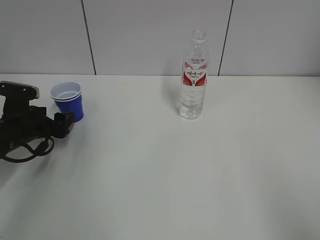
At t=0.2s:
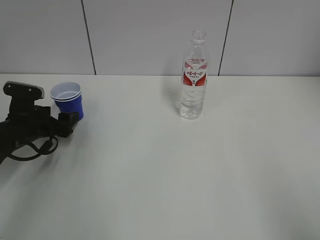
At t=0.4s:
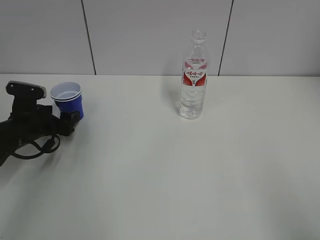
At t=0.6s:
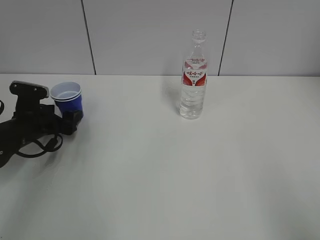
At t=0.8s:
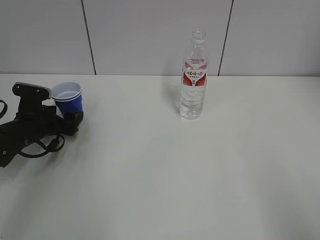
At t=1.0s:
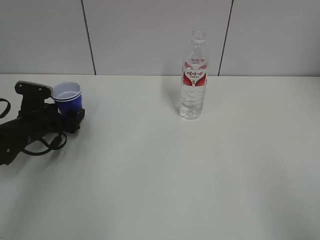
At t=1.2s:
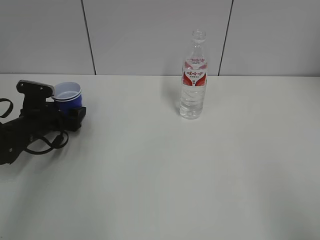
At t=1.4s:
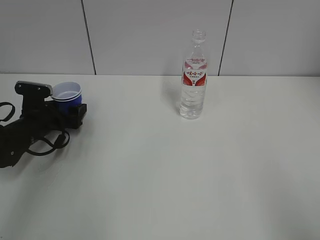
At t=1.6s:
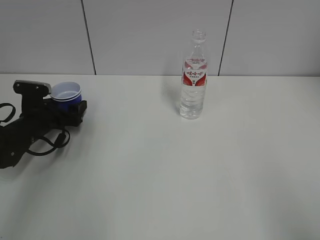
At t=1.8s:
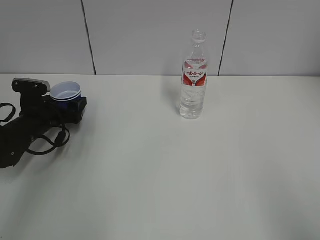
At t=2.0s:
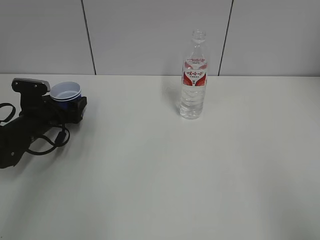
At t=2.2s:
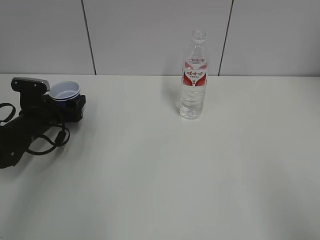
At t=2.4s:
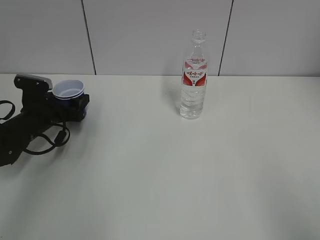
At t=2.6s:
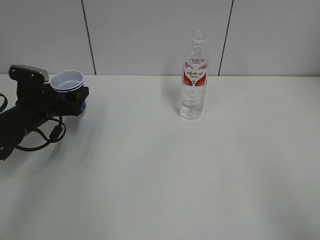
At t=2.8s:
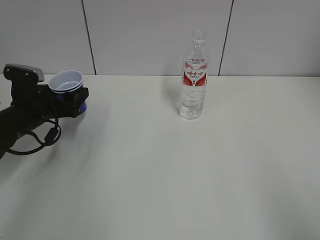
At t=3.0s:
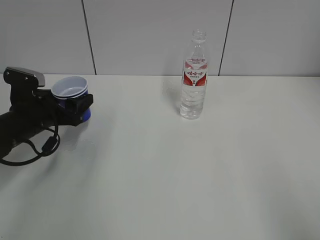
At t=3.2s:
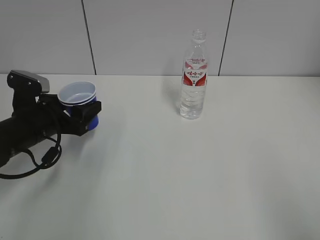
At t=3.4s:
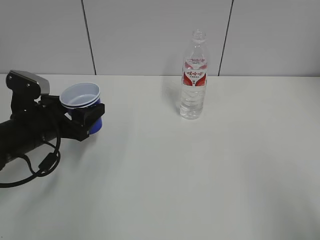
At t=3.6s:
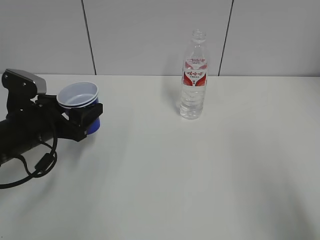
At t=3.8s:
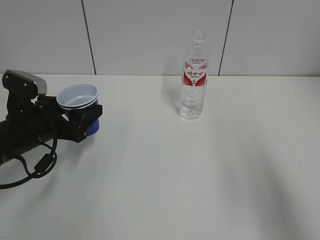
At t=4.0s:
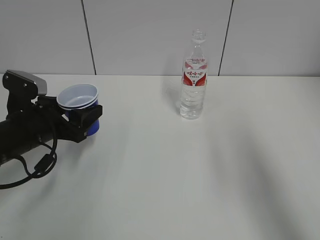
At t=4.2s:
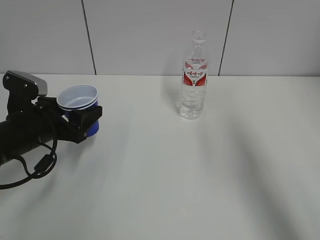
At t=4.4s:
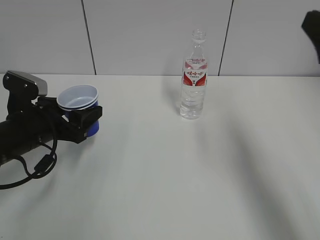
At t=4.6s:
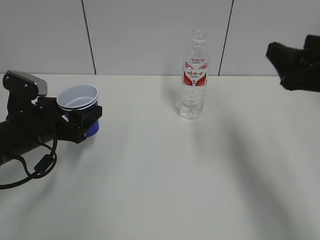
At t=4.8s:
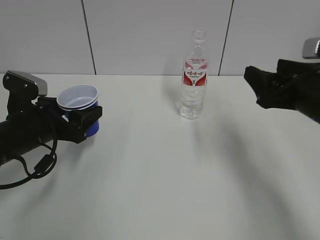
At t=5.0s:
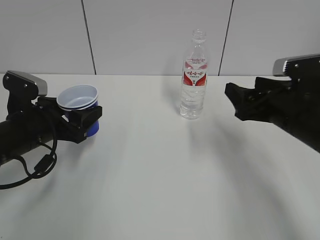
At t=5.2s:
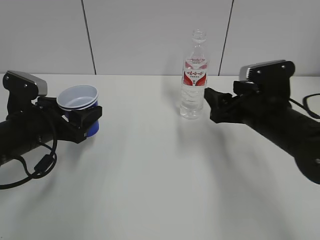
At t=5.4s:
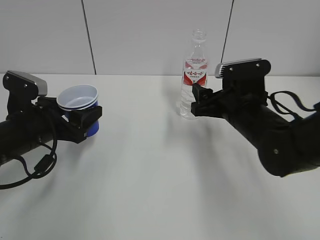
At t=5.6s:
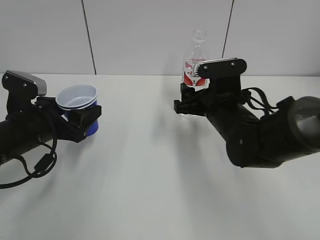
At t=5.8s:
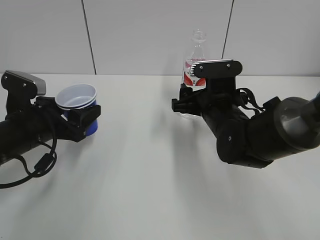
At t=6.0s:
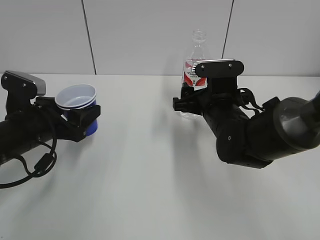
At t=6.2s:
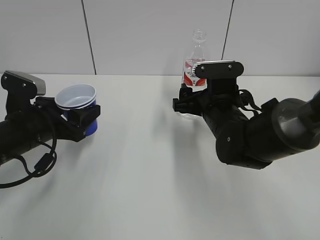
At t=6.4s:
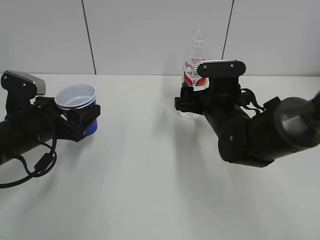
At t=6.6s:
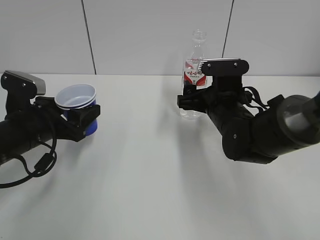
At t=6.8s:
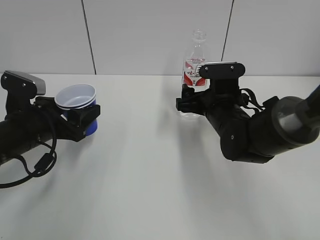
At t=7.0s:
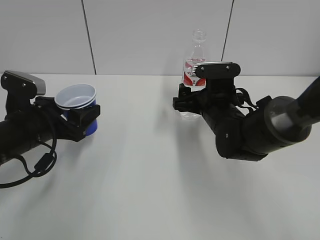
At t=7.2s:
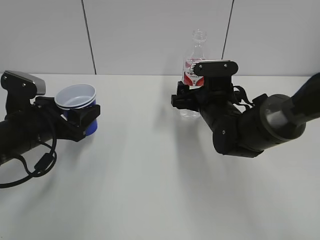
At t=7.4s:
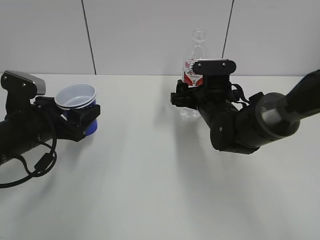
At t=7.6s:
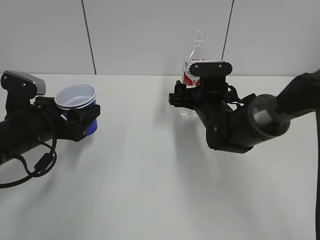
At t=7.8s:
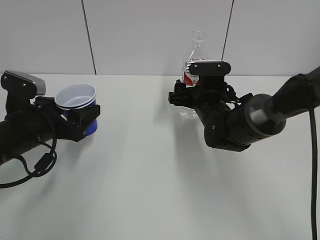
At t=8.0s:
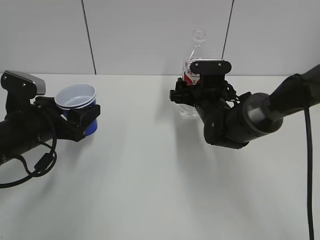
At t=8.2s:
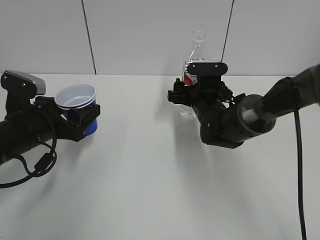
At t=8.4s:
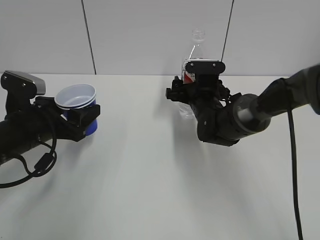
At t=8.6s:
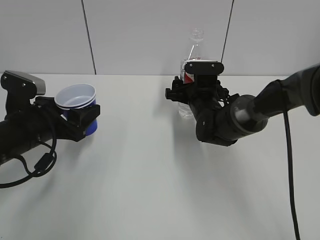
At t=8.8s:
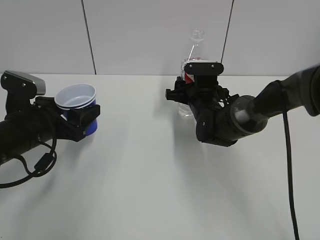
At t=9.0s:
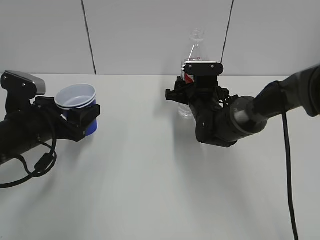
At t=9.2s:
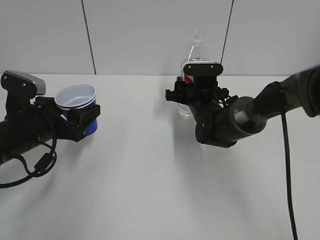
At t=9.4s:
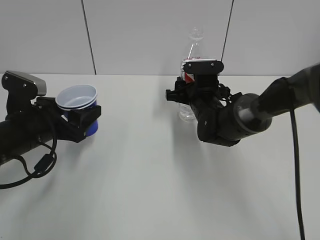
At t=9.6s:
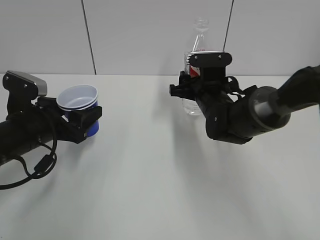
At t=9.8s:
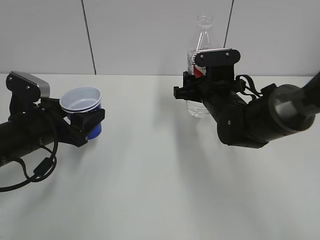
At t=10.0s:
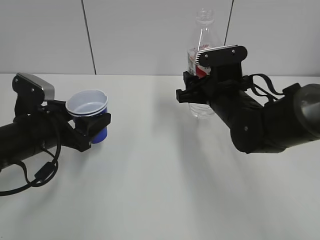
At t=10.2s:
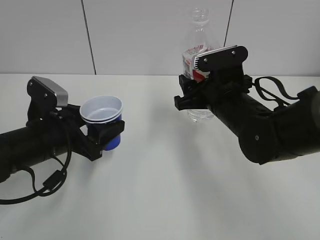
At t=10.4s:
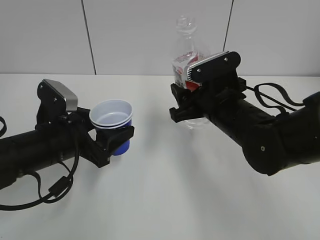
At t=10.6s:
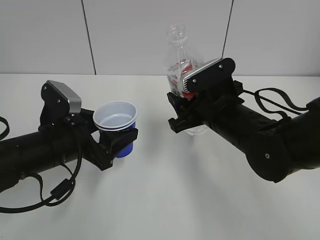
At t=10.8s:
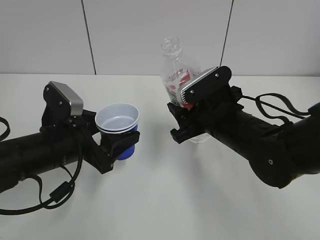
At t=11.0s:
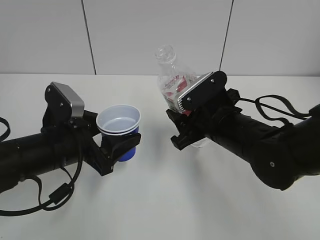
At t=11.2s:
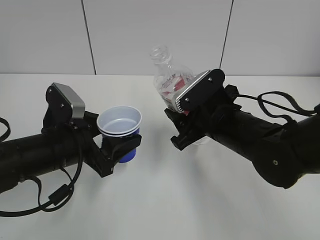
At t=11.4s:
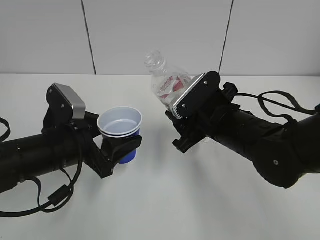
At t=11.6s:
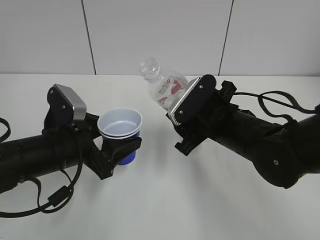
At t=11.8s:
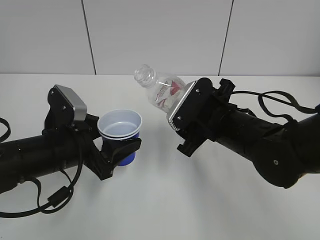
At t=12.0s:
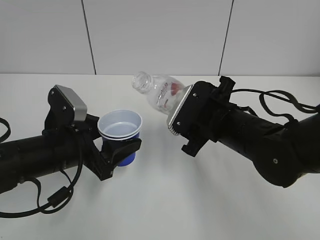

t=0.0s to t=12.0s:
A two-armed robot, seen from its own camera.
Step, t=0.0s to t=2.0s: Grab the paper cup with the left hand.
Step, t=2.2s to t=9.0s: Grab the water bottle with the right hand.
t=0.0s to t=1.6s: The left gripper changes place by about 5 cm.
t=1.6s to t=3.0s: The left gripper heads upward and backward, covering about 10 cm, and closes its fingers.
t=3.0s to t=4.4s: The right gripper moves forward, roughly 25 cm. The left gripper changes place by roughly 5 cm.
t=4.4s to t=6.0s: The right gripper heads downward, to the left and forward, covering roughly 25 cm.
t=6.0s to t=7.6s: The right gripper heads forward, covering roughly 5 cm, and opens its fingers.
t=7.6s to t=9.0s: The right gripper closes up.
t=9.0s to t=10.4s: The right gripper heads backward and upward, covering about 15 cm, while the left gripper ends up about 5 cm from where it was.

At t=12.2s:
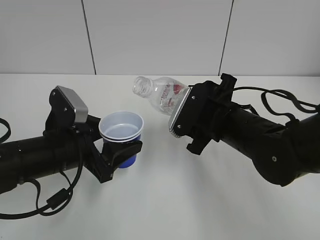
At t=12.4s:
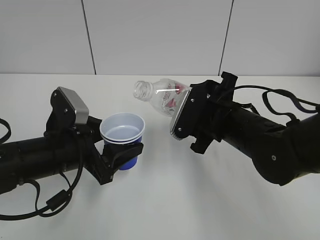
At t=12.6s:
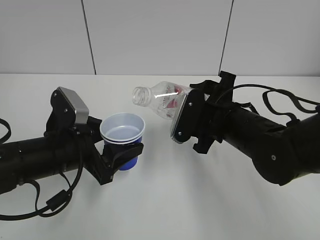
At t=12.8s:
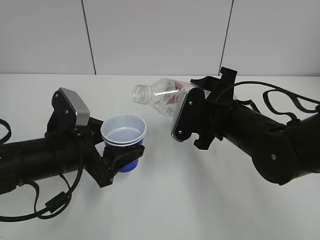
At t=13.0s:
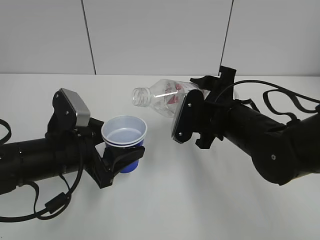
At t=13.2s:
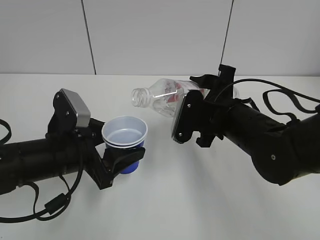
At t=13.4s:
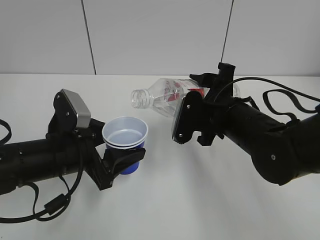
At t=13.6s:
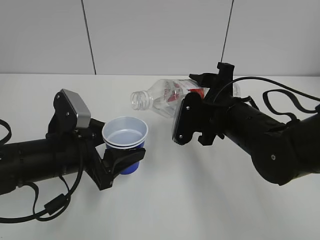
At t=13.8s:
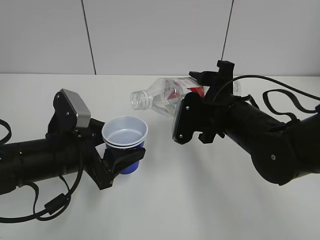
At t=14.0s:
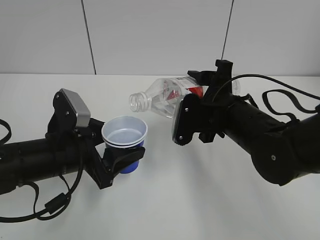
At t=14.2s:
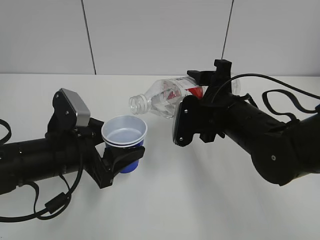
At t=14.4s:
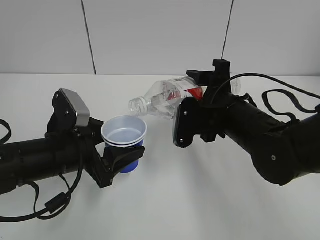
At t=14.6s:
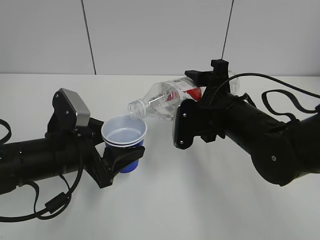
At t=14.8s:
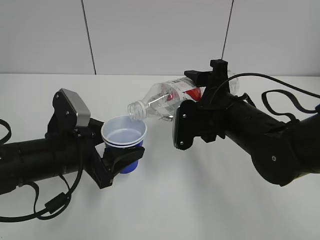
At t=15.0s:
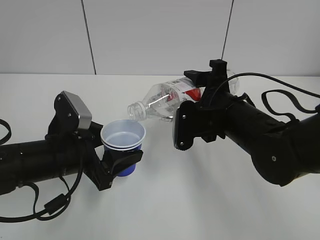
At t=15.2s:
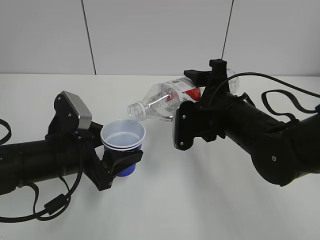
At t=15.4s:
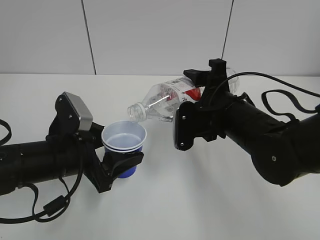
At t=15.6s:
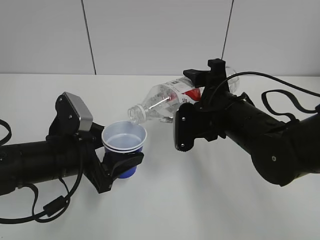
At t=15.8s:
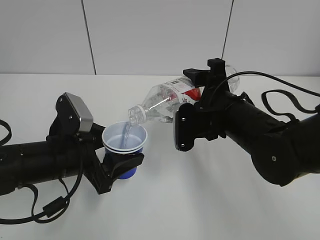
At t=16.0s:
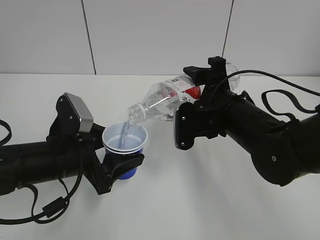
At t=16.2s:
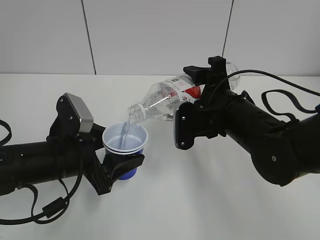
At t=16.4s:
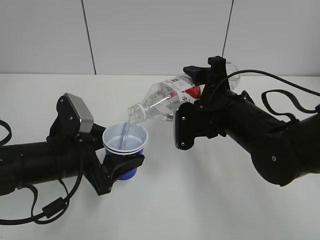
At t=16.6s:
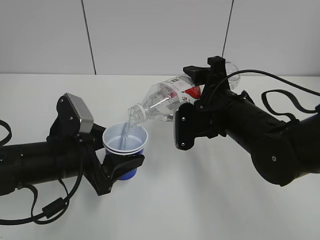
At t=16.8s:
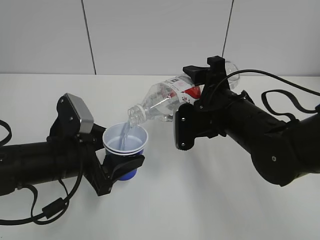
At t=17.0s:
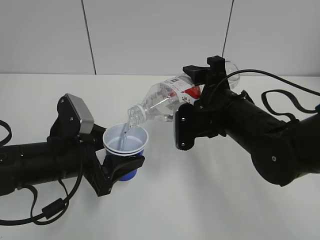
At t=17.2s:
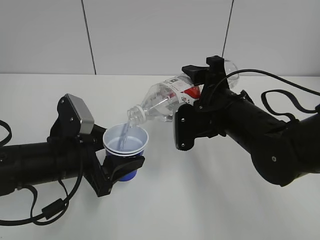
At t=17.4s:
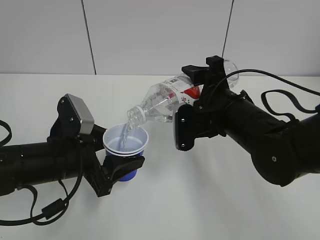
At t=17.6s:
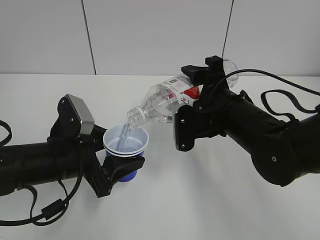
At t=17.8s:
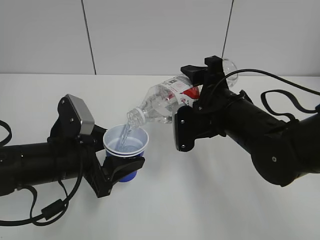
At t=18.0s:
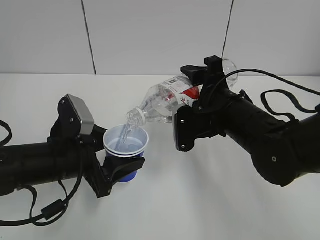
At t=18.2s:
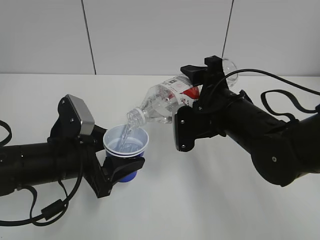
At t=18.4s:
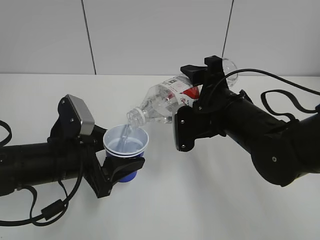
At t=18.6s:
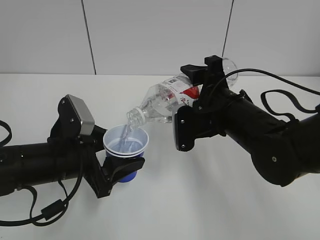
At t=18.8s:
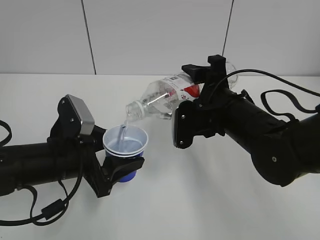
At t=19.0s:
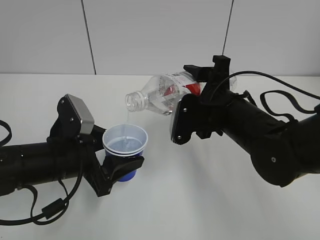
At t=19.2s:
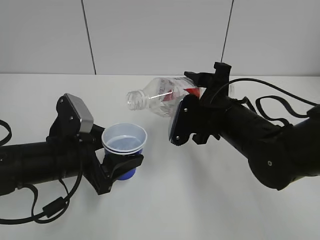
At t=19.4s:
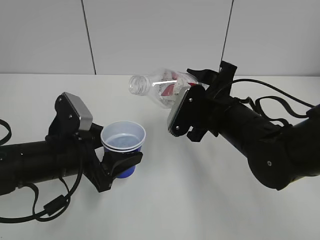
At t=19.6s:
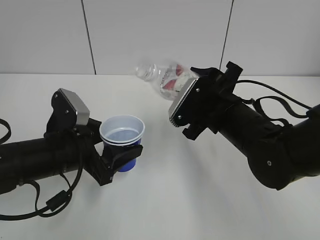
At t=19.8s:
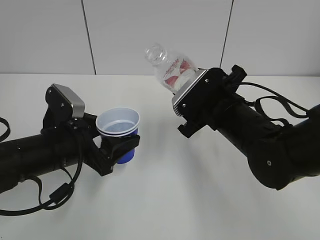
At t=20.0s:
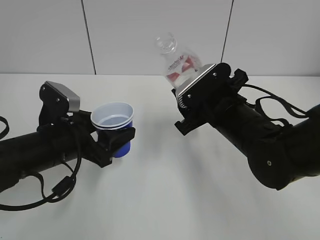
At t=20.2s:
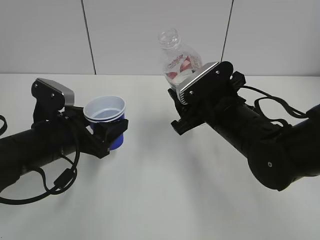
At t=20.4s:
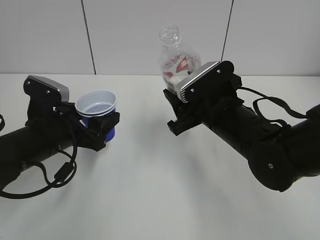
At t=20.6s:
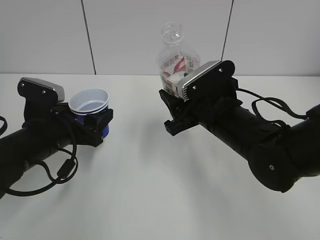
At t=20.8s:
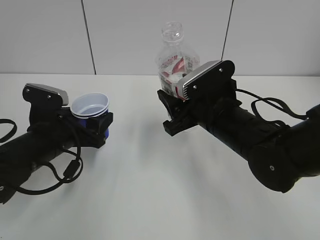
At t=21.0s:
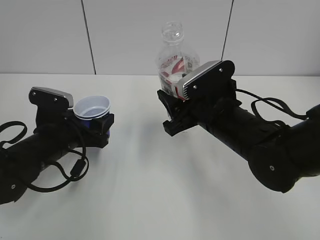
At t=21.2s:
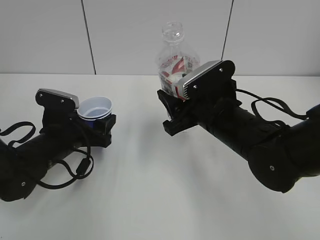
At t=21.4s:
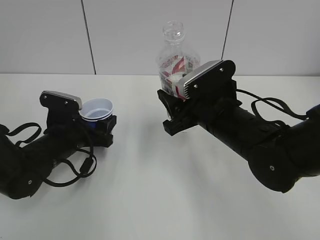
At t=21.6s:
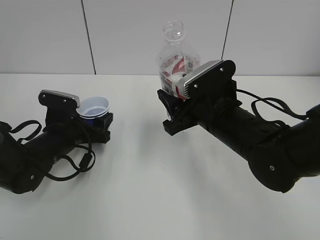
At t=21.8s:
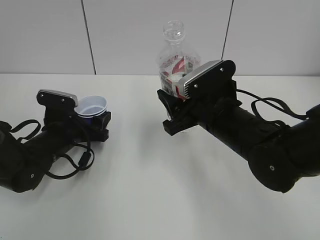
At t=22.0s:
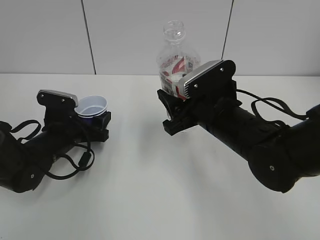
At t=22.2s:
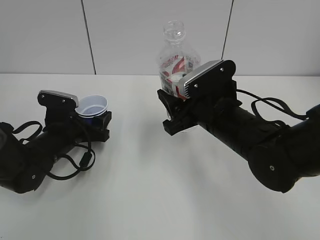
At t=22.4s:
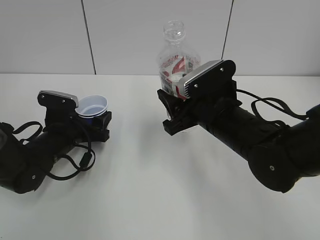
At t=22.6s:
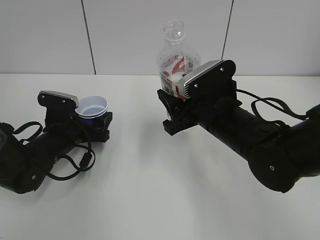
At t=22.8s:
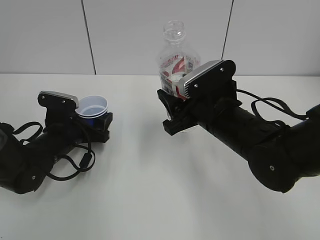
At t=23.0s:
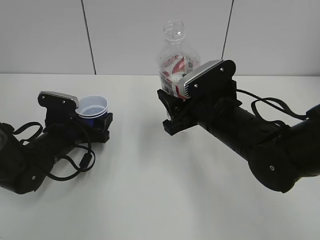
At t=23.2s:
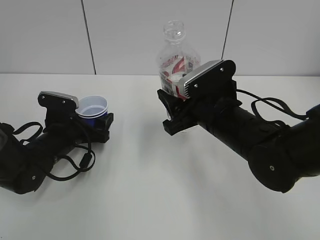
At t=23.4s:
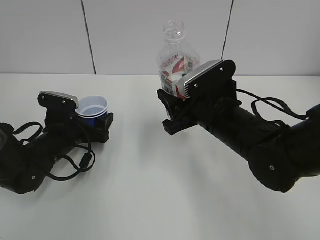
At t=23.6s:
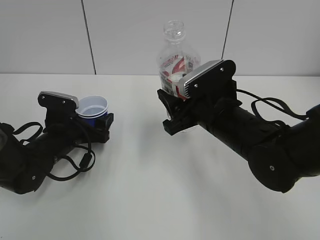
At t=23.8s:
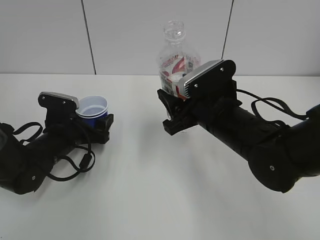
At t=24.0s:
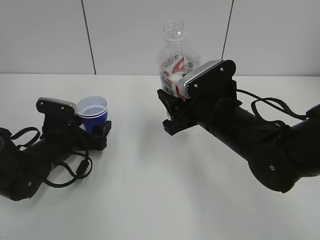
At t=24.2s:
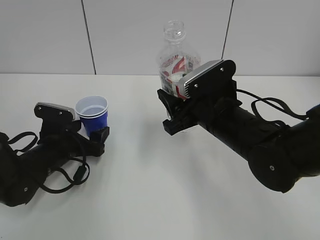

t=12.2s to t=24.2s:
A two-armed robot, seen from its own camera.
Step, t=12.2s to t=15.4s: Lift the paper cup with the left hand.
Step, t=15.6s to t=19.0s: Fill water with the left hand.
Step, t=15.6s to t=19.0s: Pour water with the right hand.
Step, t=19.2s to t=20.4s: Collect water with the right hand.
t=13.8s to t=15.2s: The grippers make only small movements.
t=15.2s to t=16.6s: Both grippers stay about where they are.
t=16.6s to t=18.2s: Neither gripper changes place.
t=19.8s to t=21.2s: The left gripper heads forward, covering roughly 5 cm.
t=21.2s to t=22.6s: The grippers make only small movements.
t=22.6s to t=24.2s: The left gripper opens its fingers.
